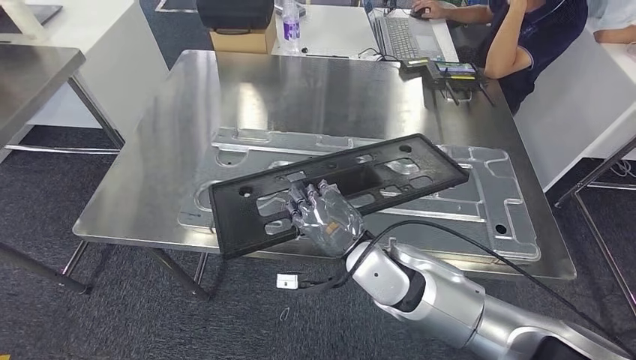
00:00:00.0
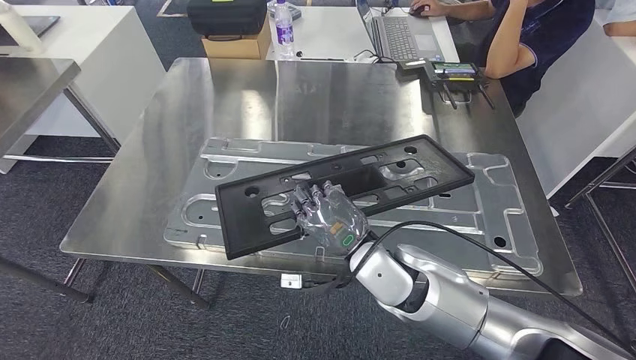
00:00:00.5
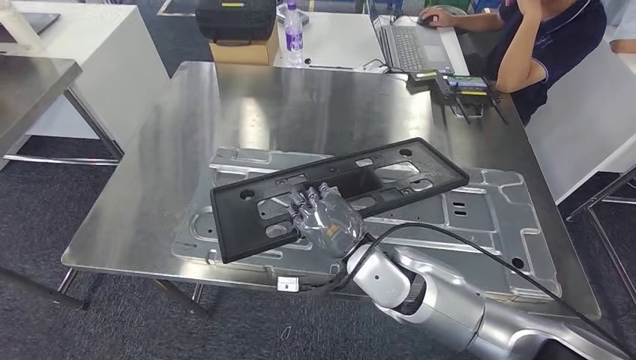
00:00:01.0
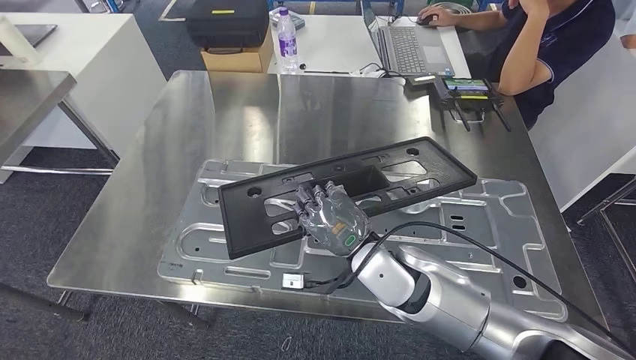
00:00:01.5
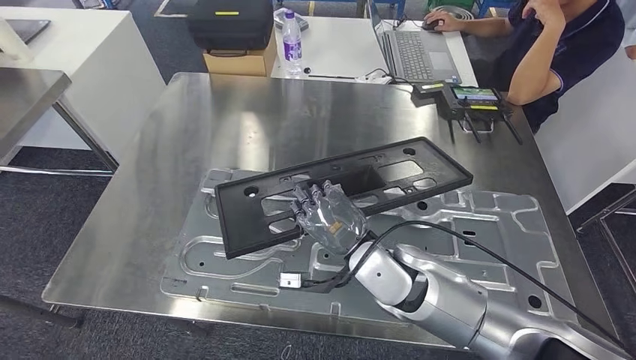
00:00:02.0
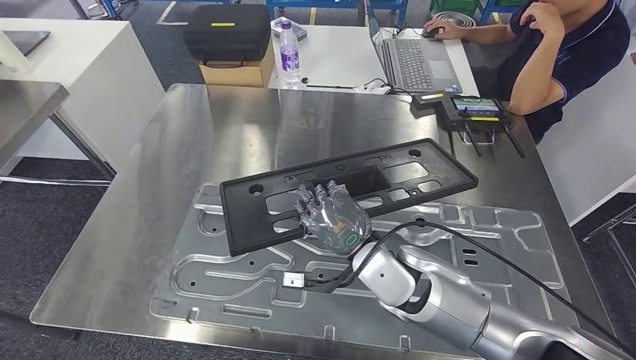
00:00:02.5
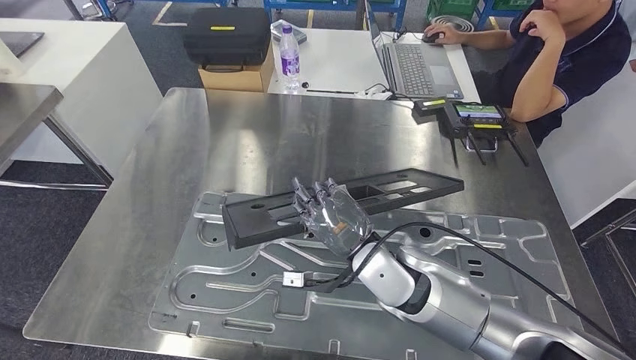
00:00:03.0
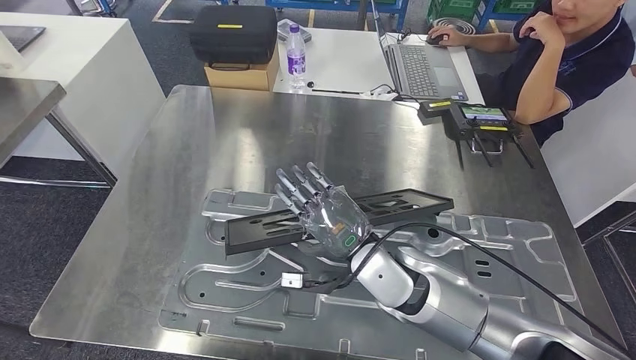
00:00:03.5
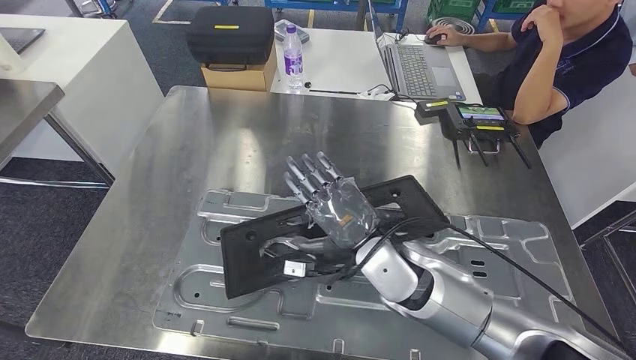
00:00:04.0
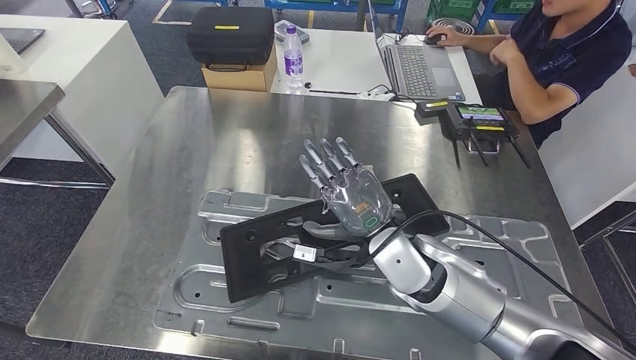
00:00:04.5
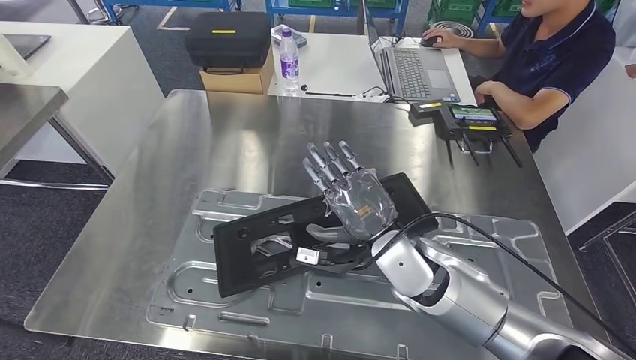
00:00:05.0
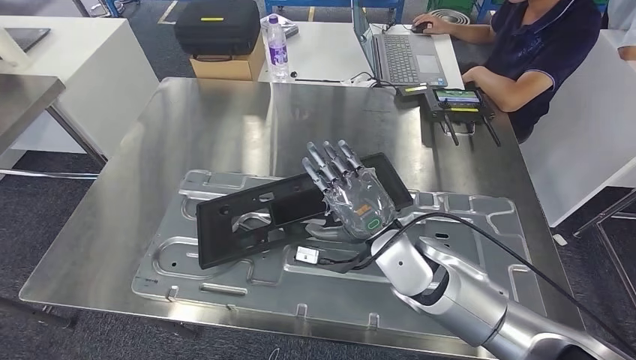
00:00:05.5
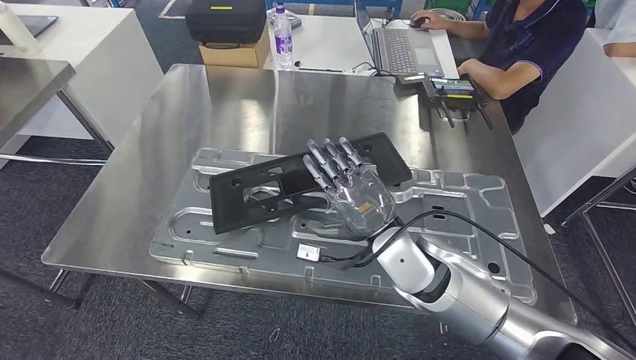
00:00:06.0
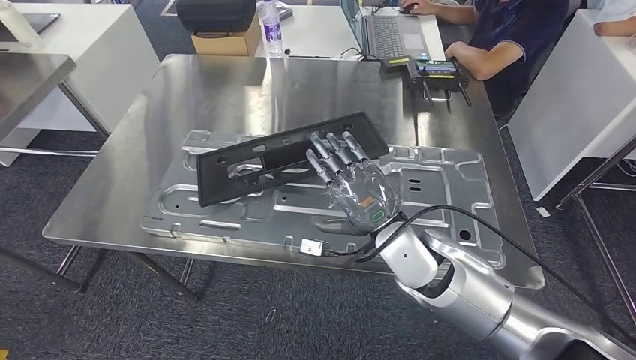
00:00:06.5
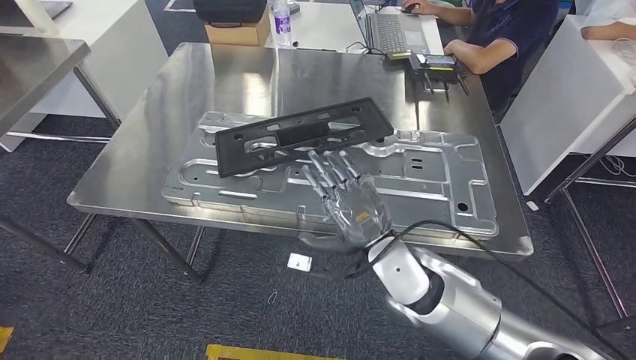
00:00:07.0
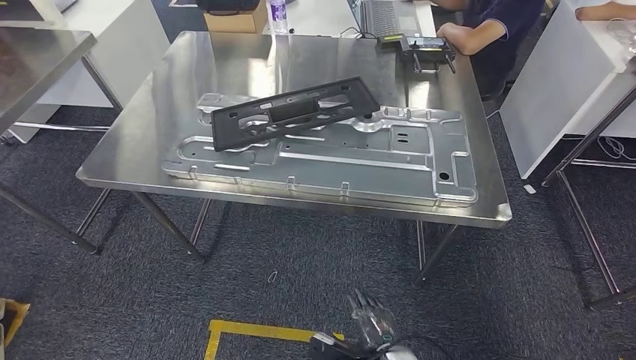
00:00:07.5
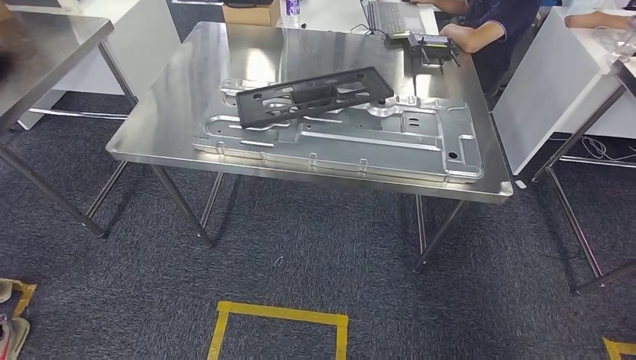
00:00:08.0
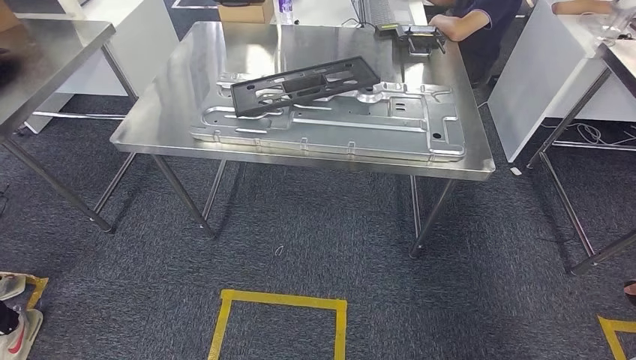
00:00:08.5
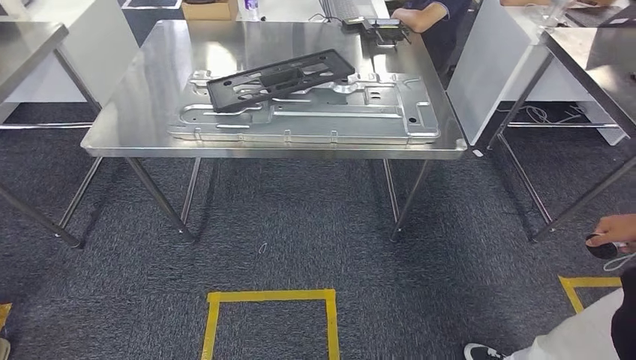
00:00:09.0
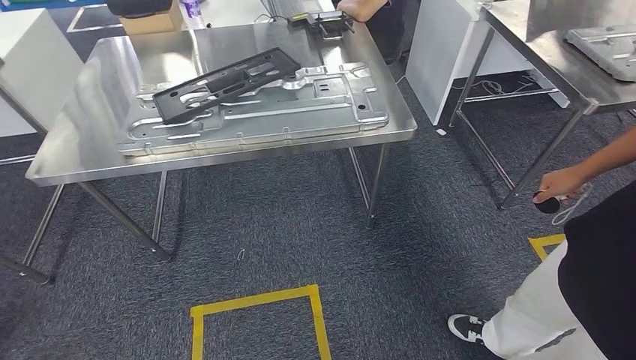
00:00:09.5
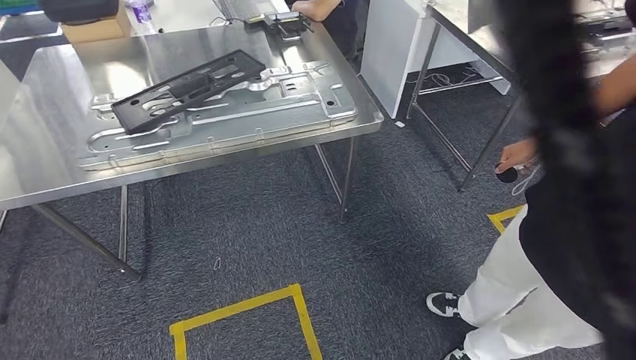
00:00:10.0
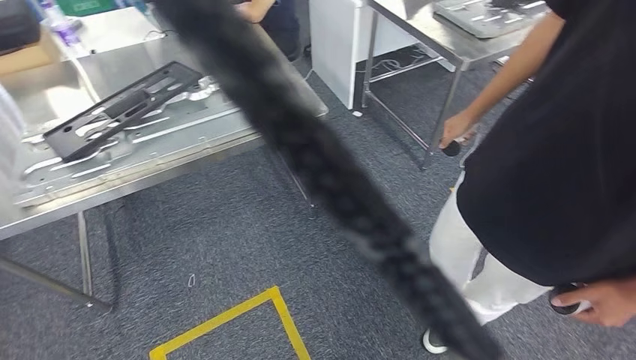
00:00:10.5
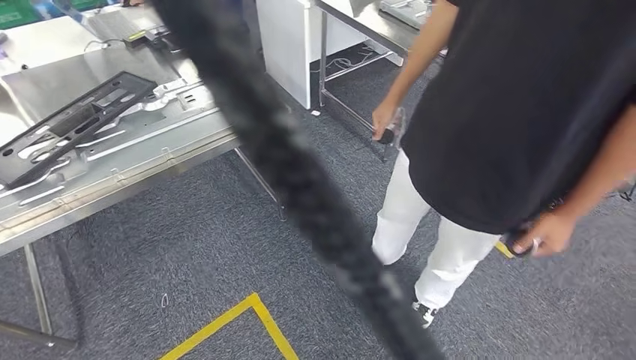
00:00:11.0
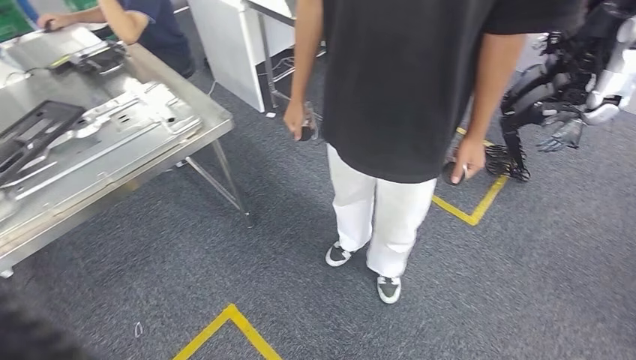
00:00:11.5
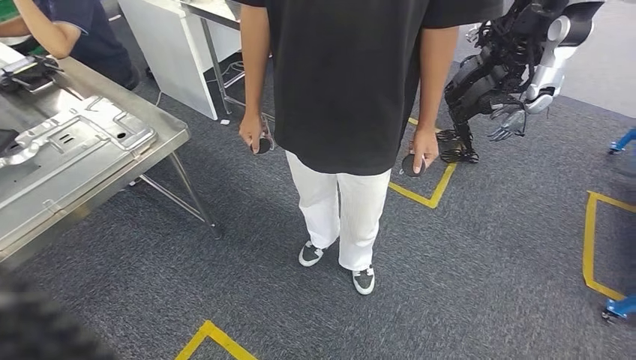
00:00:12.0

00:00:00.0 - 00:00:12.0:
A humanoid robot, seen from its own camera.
Step, 00:00:00.0 - 00:00:04.5: Insert the large parts into the corresponding slots on the workbench.

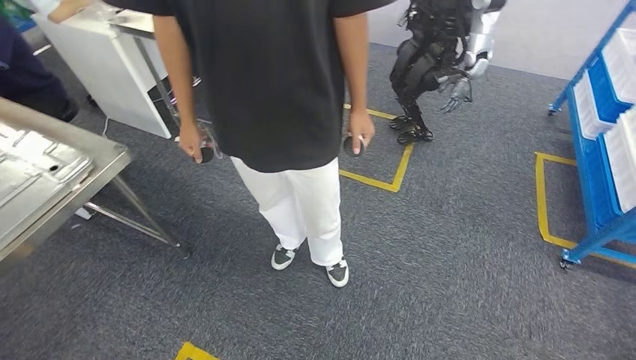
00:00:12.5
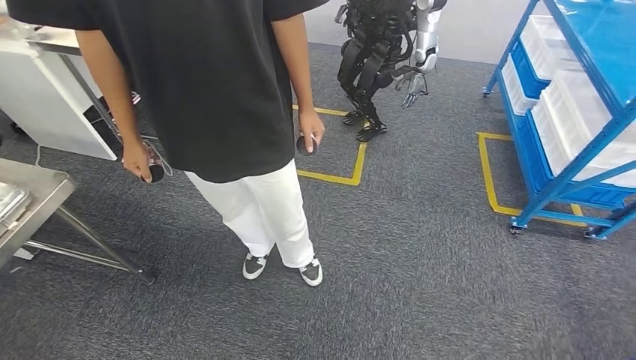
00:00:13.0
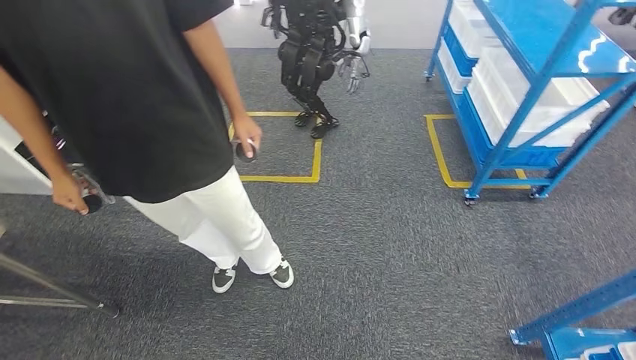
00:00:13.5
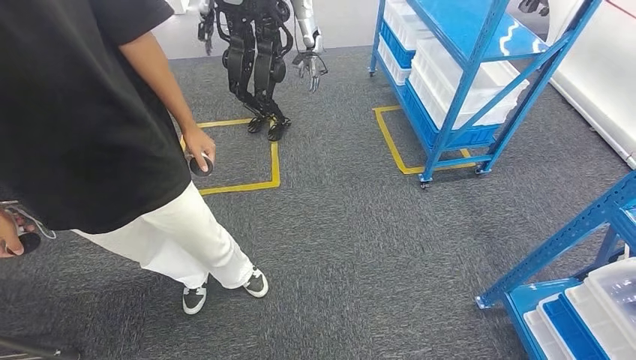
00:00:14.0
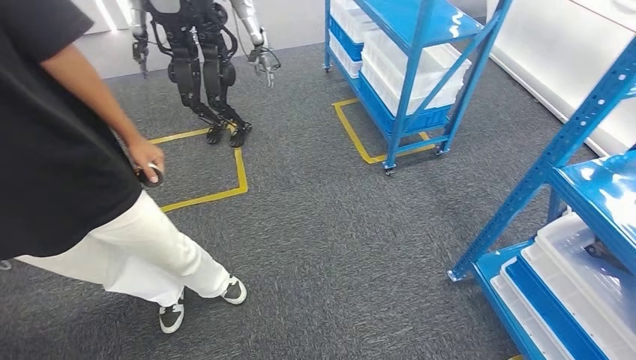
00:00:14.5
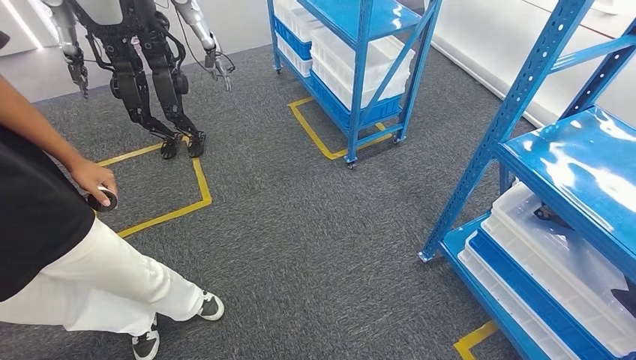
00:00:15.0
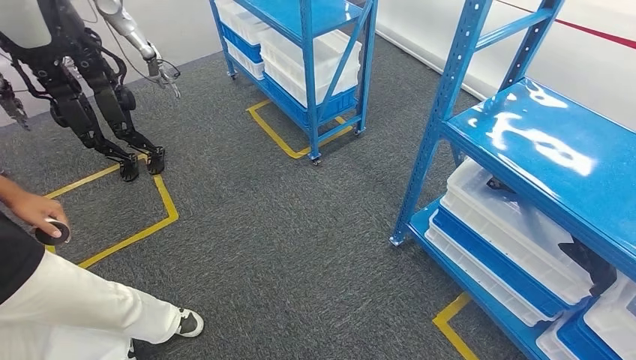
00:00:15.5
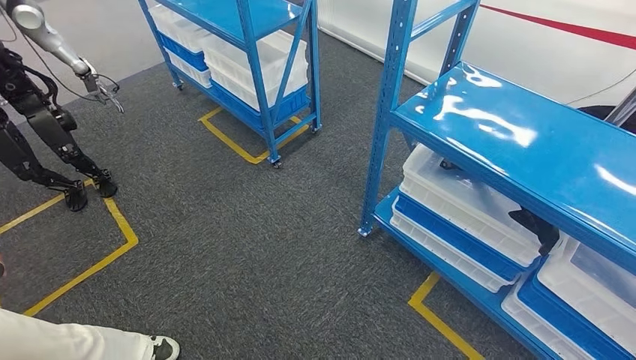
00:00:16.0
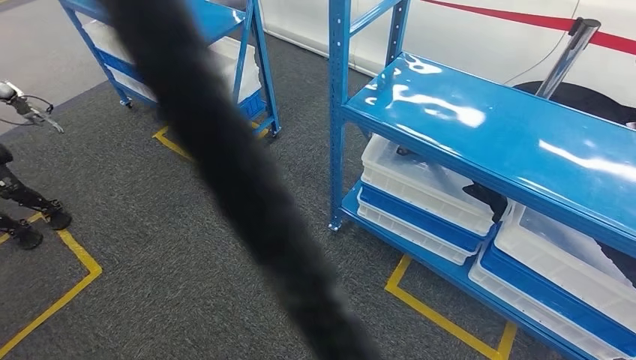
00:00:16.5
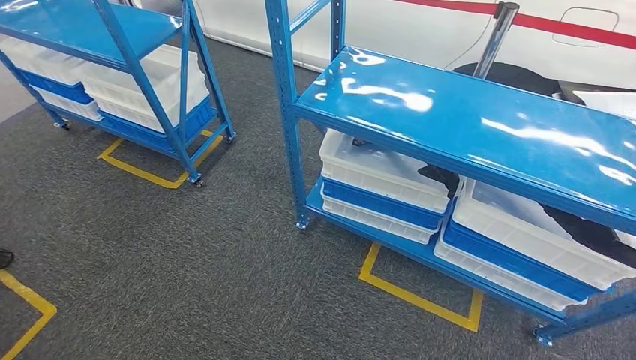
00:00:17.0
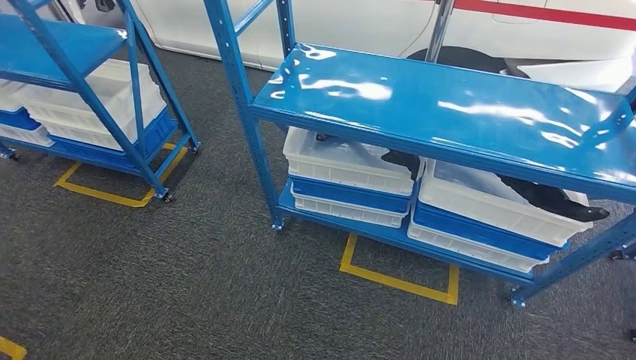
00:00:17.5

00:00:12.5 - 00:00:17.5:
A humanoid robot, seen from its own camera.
Step, 00:00:12.5 - 00:00:17.5: Return to the initial position at the shelf.
